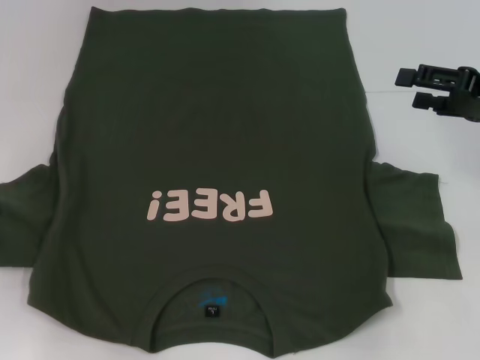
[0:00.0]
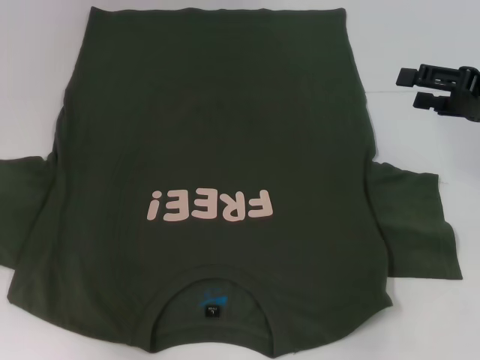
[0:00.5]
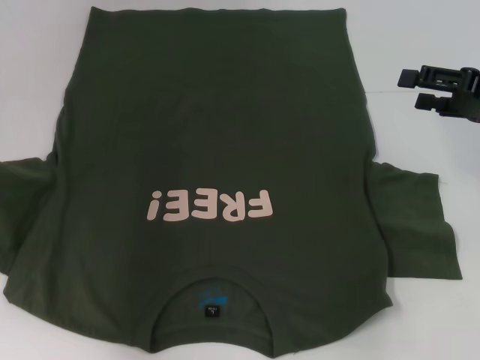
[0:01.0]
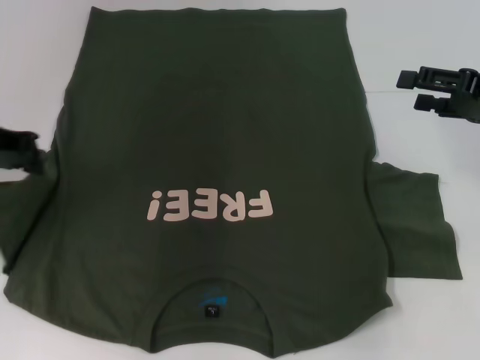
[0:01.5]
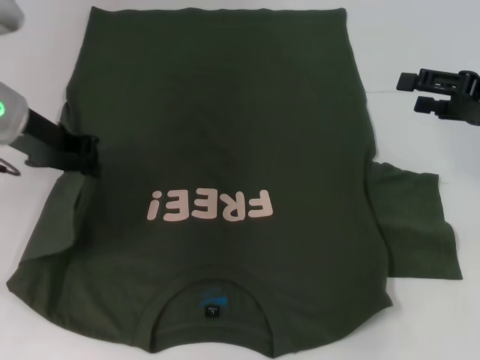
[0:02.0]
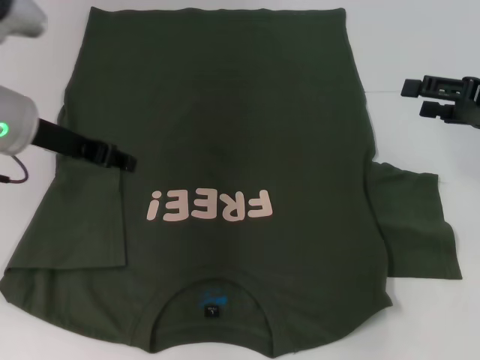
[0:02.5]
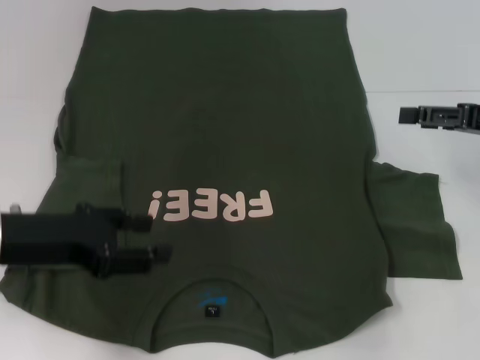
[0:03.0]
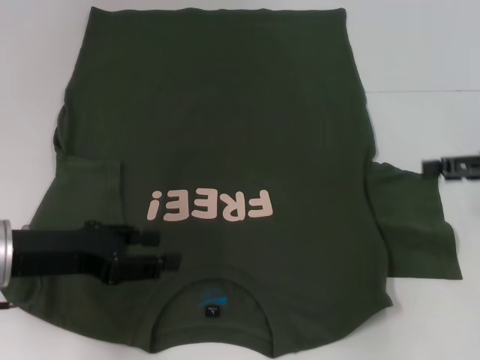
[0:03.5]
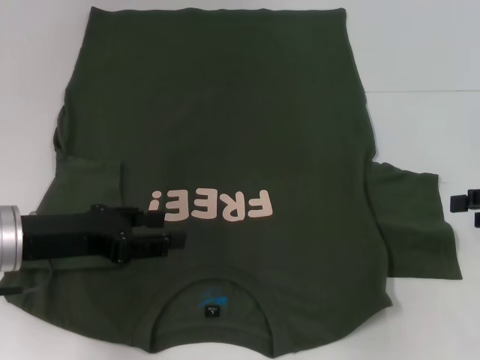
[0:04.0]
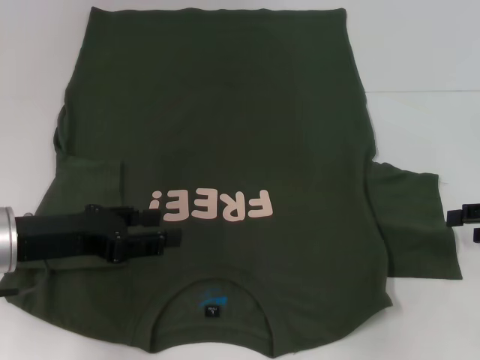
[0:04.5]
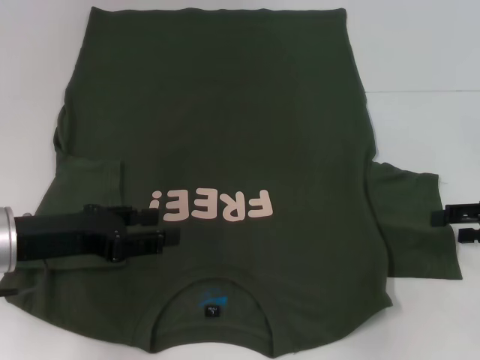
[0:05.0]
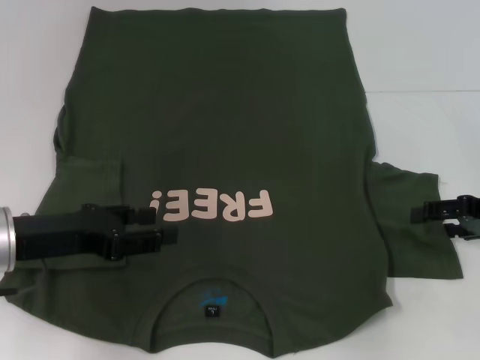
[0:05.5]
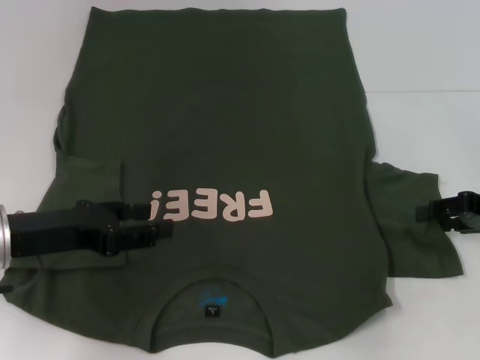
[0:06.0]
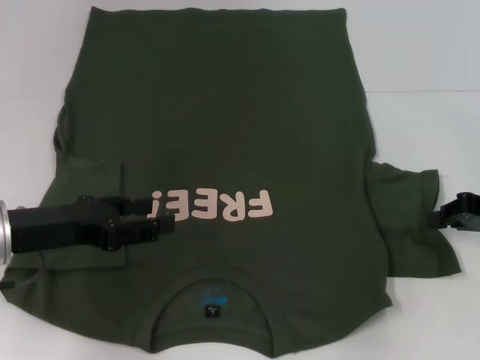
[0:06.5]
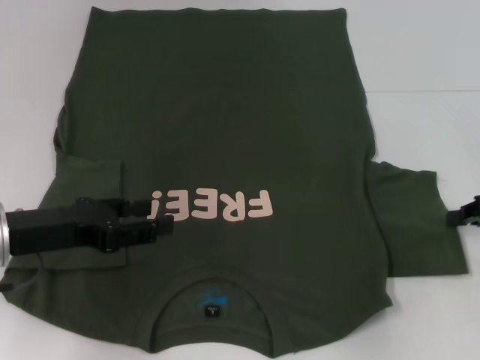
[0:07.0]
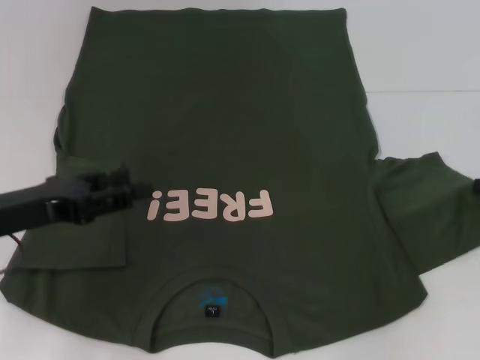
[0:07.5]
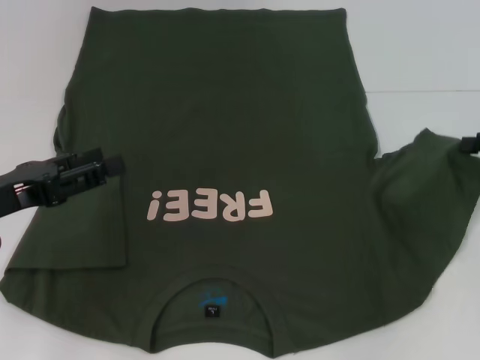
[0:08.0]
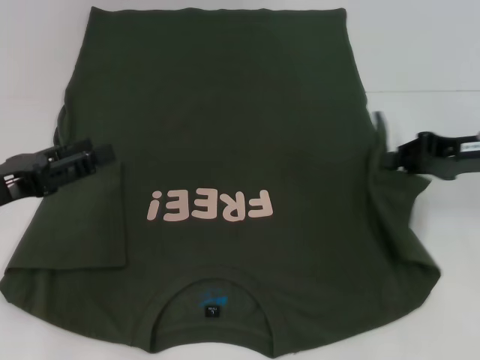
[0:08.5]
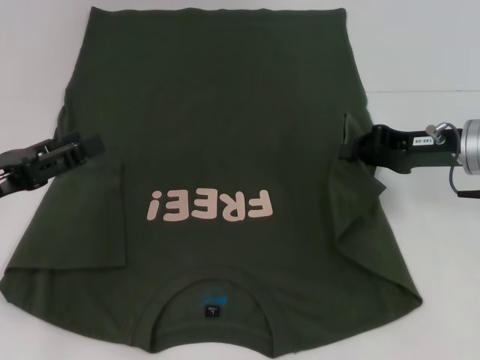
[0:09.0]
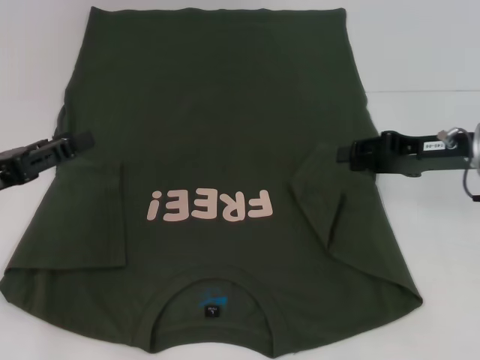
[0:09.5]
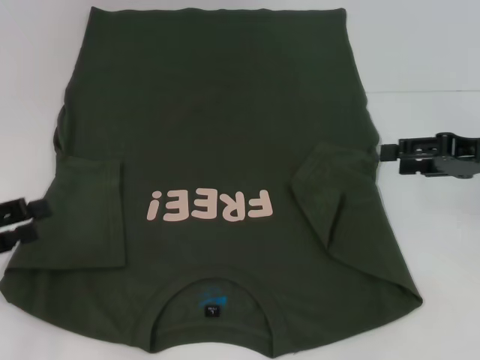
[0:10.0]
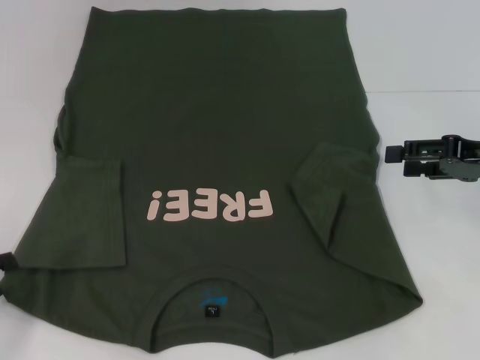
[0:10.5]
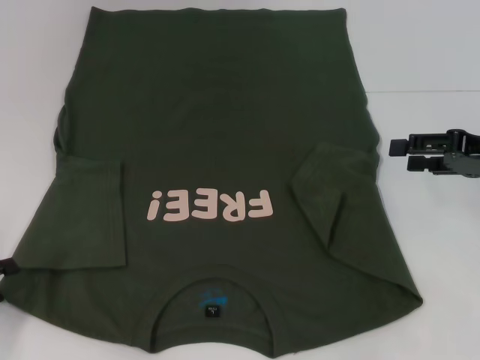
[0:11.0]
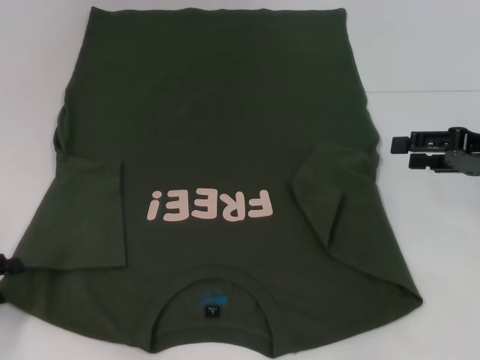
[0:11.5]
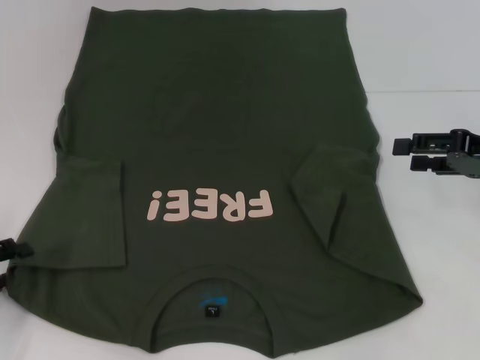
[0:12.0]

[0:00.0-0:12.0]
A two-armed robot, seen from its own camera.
Step, 0:00.0 to 0:02.5: Fold the bottom left sleeve with your left hand.
Step, 0:03.0 to 0:09.5: Fold the bottom right sleeve with your right hand.
0:00.0 to 0:02.0: The left gripper moves to the right, forward and upward, about 20 cm.
0:02.0 to 0:04.0: The left gripper travels backward and downward by approximately 15 cm, and opens its fingers; the right gripper is displaced to the right and backward by about 5 cm.
0:04.0 to 0:06.0: The right gripper shifts by about 5 cm.
0:06.0 to 0:08.0: The right gripper ends up about 5 cm from where it was, and closes its fingers.
0:08.0 to 0:10.0: The grippers both shift to the left by approximately 5 cm. The right gripper opens its fingers.
0:10.0 to 0:12.0: The left gripper is displaced downward by approximately 5 cm.

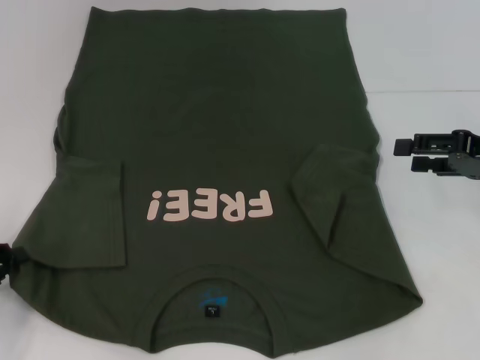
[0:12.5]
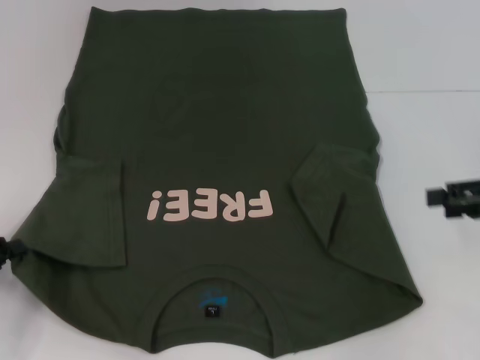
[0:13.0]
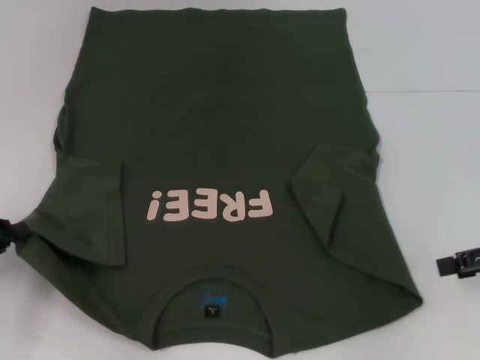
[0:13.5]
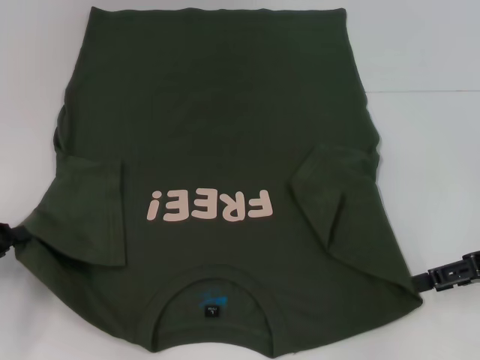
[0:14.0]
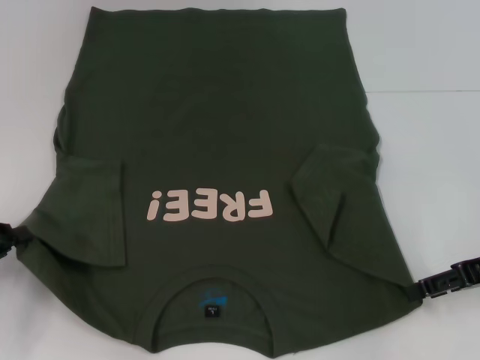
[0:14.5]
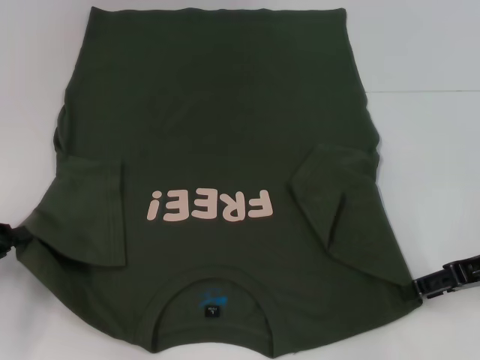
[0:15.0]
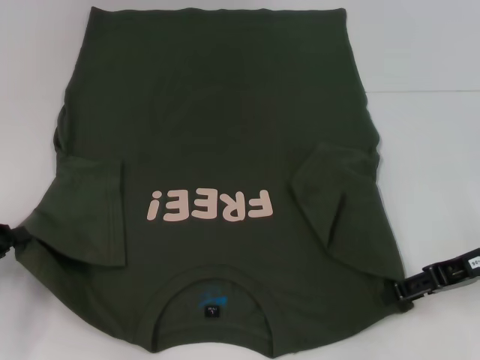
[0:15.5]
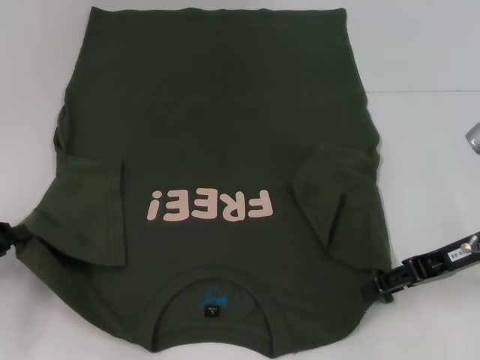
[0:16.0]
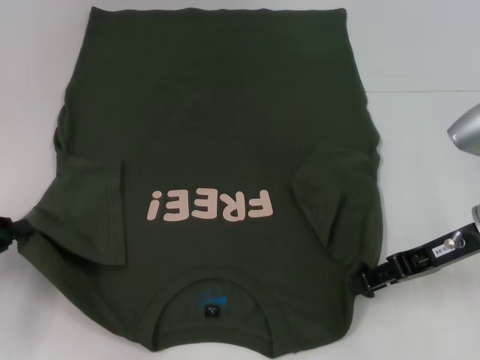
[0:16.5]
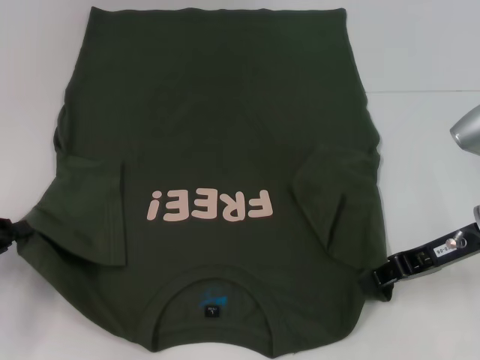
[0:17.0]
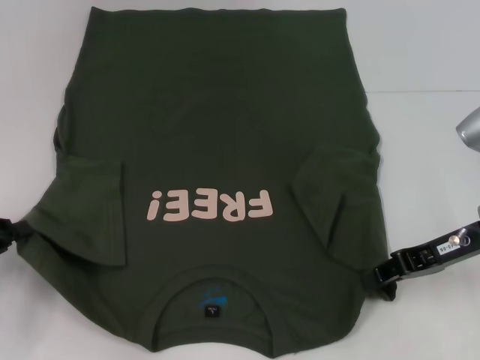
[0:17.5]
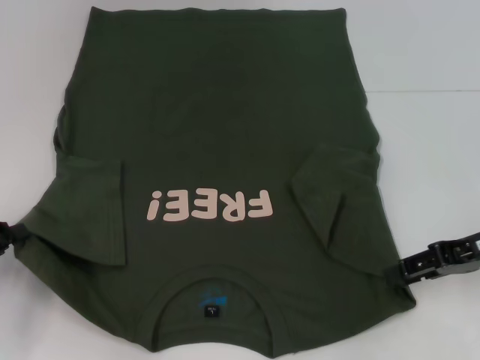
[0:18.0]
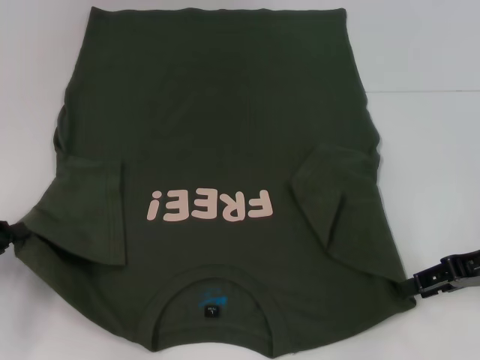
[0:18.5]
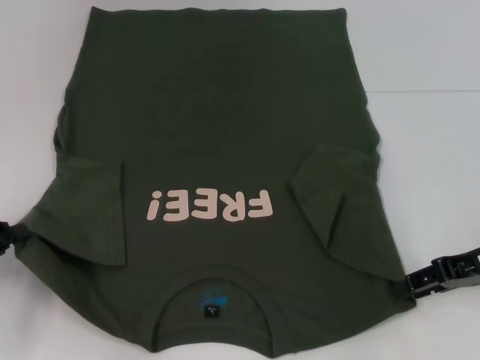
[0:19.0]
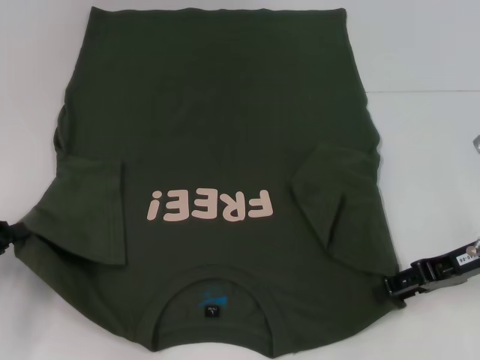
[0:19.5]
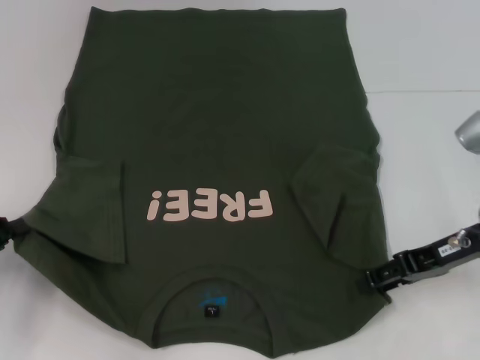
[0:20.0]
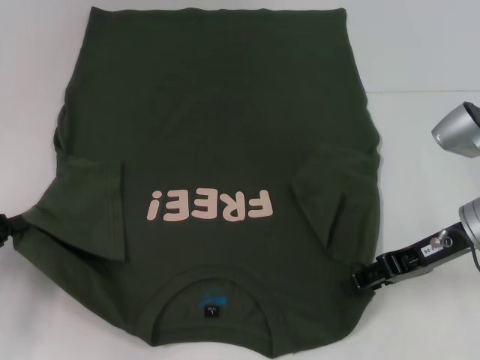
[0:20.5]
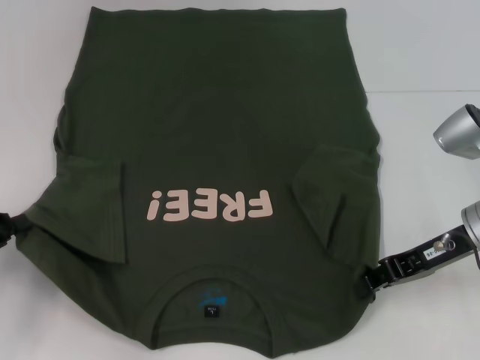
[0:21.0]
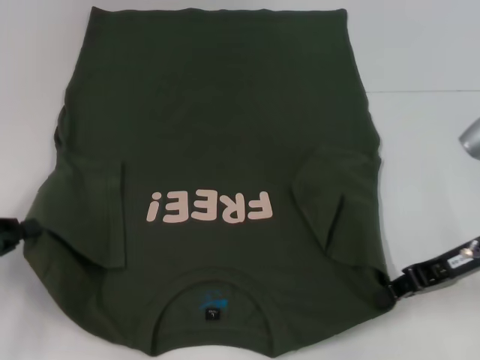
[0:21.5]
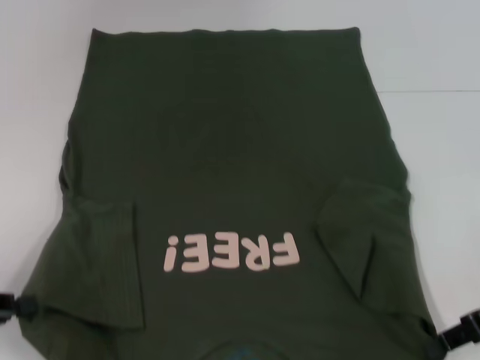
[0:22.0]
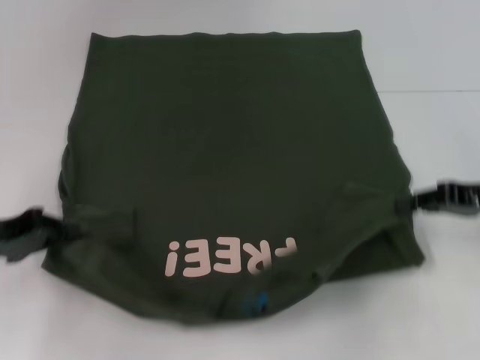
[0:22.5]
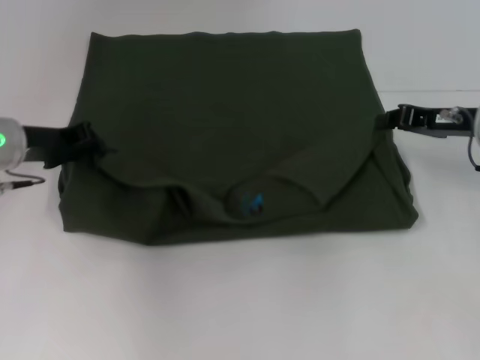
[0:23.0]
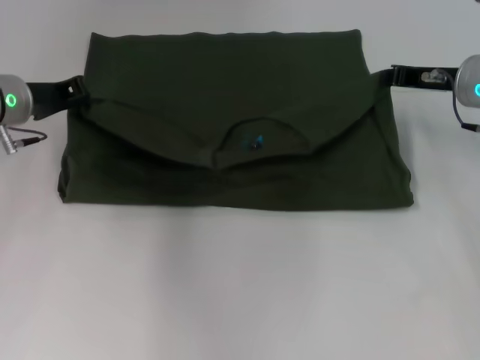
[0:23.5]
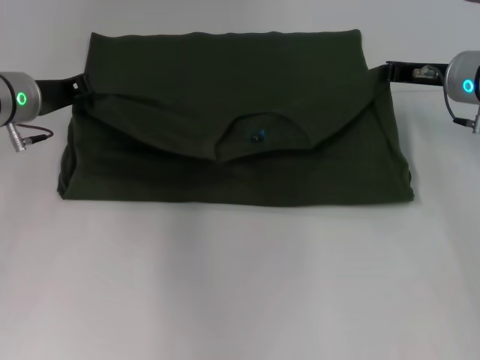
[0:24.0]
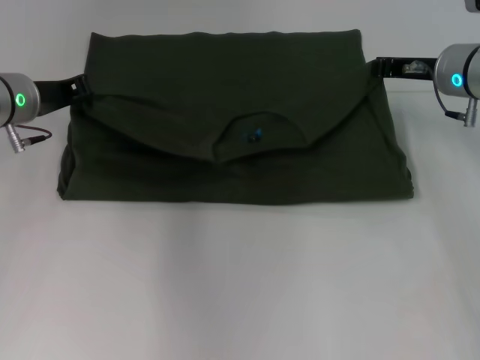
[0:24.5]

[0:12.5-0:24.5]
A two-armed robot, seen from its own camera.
Step, 0:13.0 to 0:20.5: Grab the bottom right corner with your right hand.
0:12.5 to 0:14.5: The left gripper closes up; the right gripper changes place by approximately 5 cm.
0:14.5 to 0:16.5: The right gripper is displaced to the left by roughly 5 cm.
0:16.5 to 0:18.5: The right gripper is displaced to the right by about 5 cm, and closes, then opens again.
0:18.5 to 0:20.5: The right gripper heads to the left, covering some 5 cm.
0:20.5 to 0:22.5: The left gripper shifts by roughly 5 cm. Meanwhile the right gripper moves to the right, approximately 5 cm, and closes its fingers.
0:22.5 to 0:24.5: The right gripper heads forward and to the left, covering roughly 15 cm; the left gripper heads forward and to the right, covering approximately 15 cm.

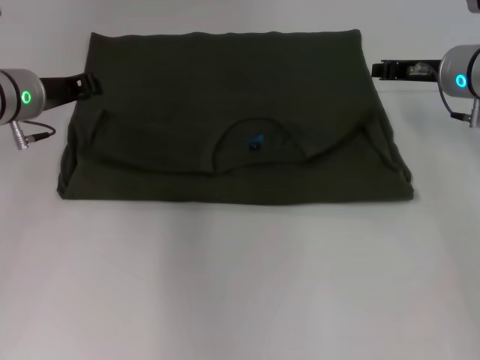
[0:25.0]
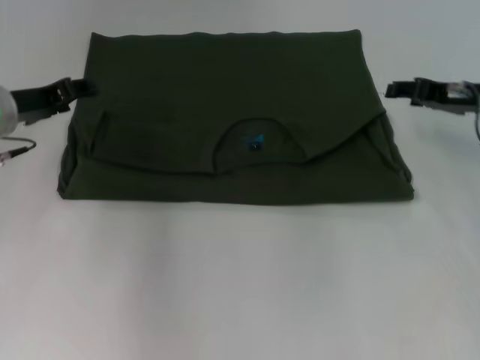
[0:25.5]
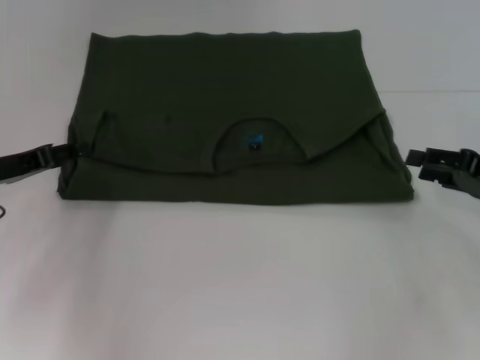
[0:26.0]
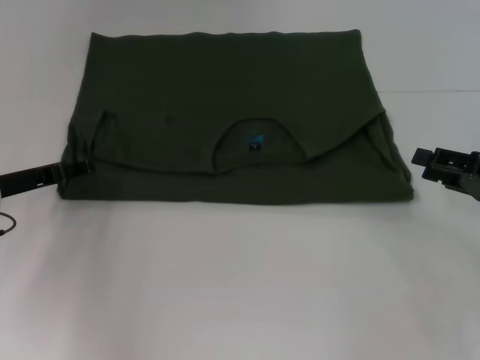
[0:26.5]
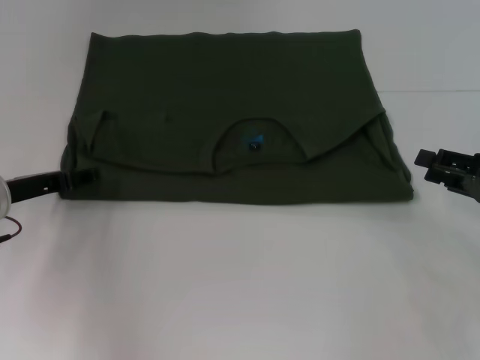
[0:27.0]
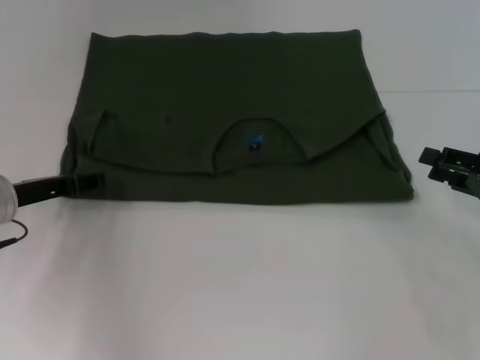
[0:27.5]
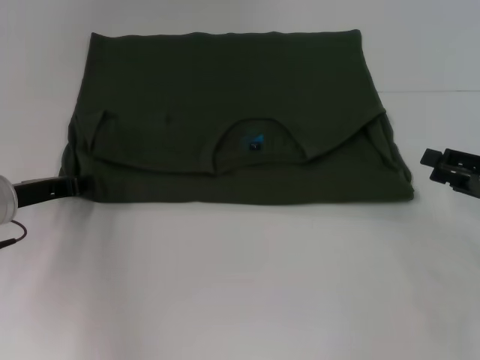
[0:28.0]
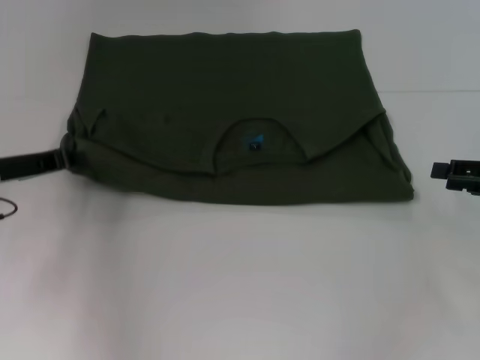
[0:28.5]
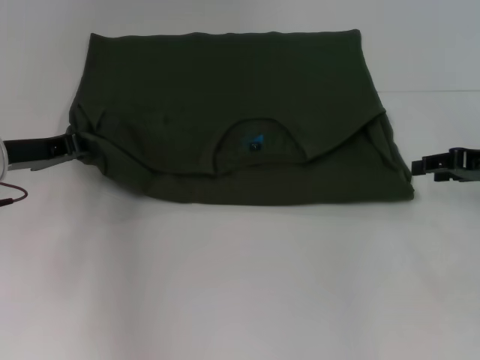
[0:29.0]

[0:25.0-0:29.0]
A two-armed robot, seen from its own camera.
0:25.0 to 0:27.0: The left gripper shifts roughly 10 cm backward and downward, and opens its fingers; the right gripper travels backward and to the right by some 20 cm, and opens its fingers.
0:27.0 to 0:29.0: The right gripper shifts some 5 cm forward; the left gripper closes up.
